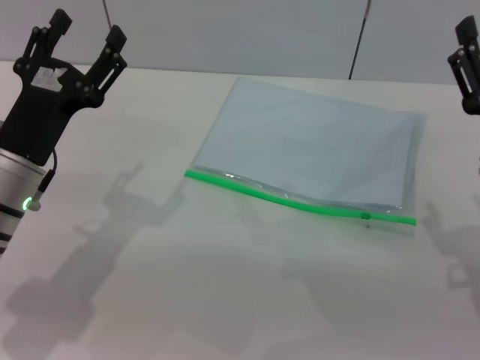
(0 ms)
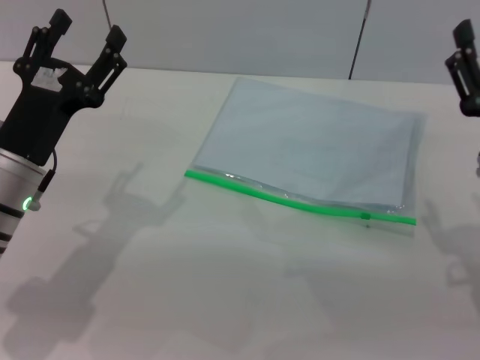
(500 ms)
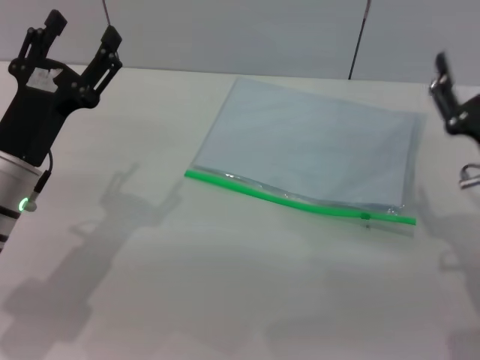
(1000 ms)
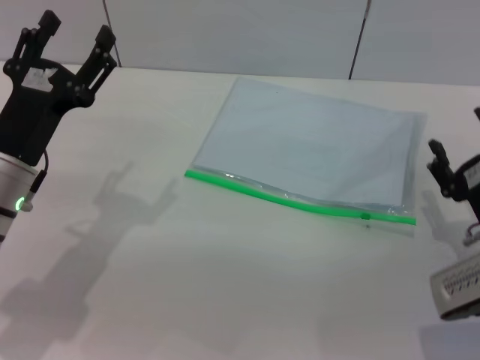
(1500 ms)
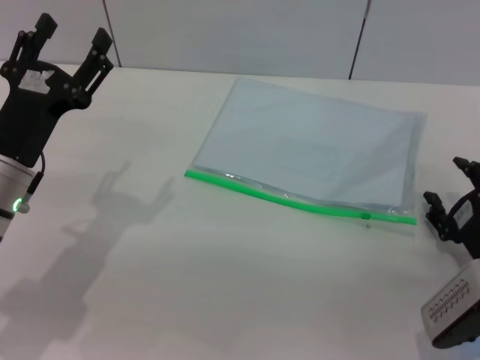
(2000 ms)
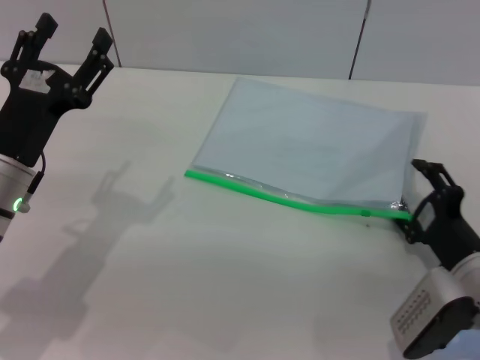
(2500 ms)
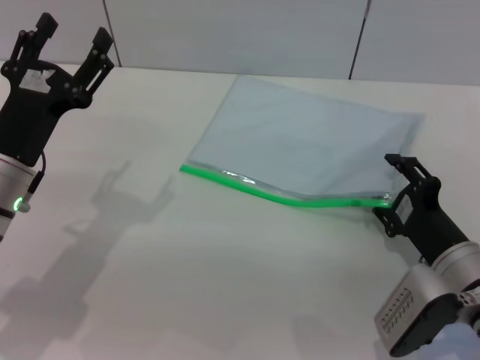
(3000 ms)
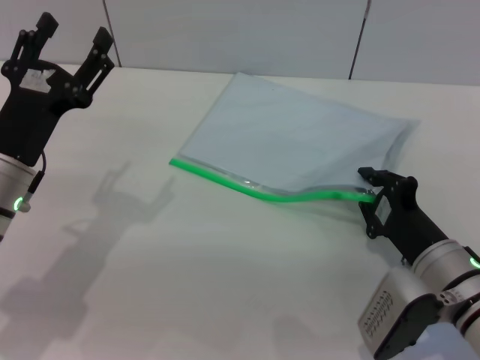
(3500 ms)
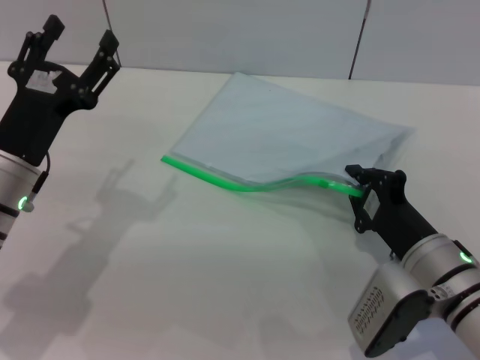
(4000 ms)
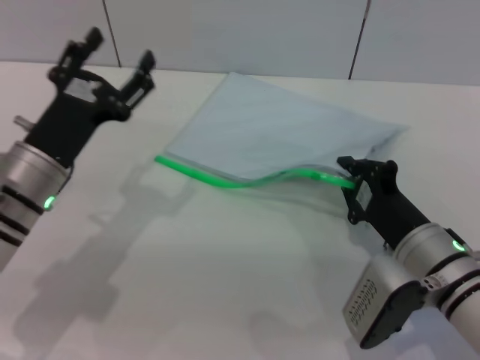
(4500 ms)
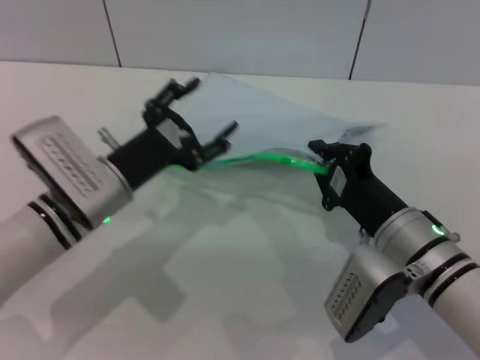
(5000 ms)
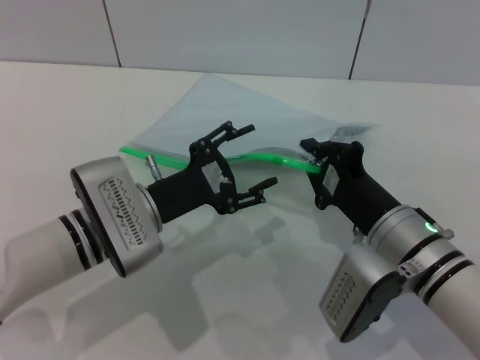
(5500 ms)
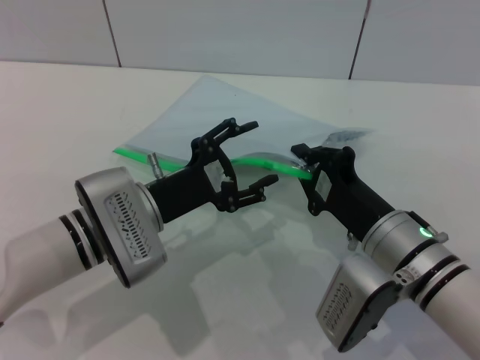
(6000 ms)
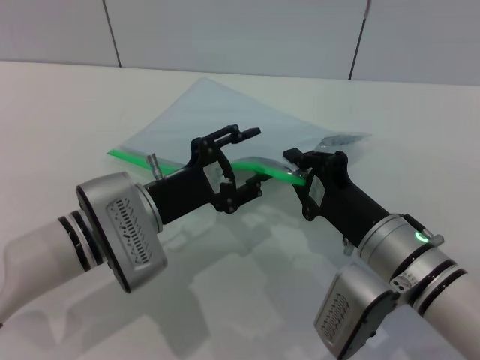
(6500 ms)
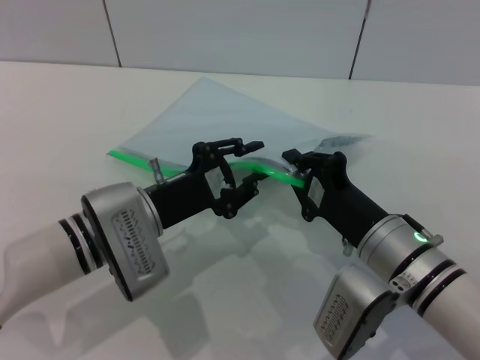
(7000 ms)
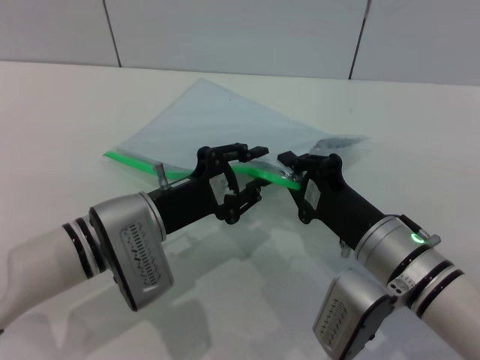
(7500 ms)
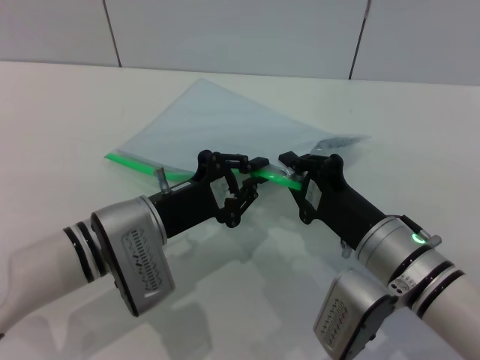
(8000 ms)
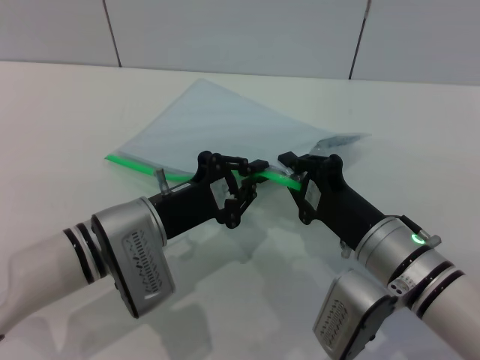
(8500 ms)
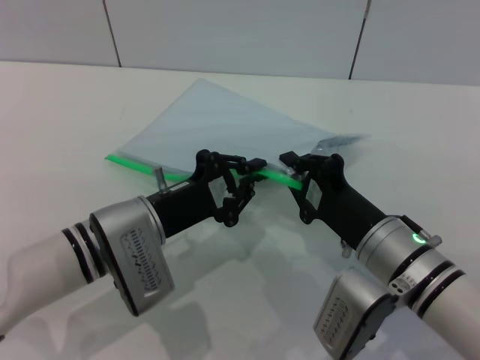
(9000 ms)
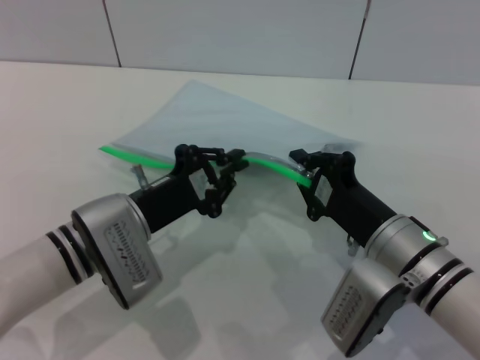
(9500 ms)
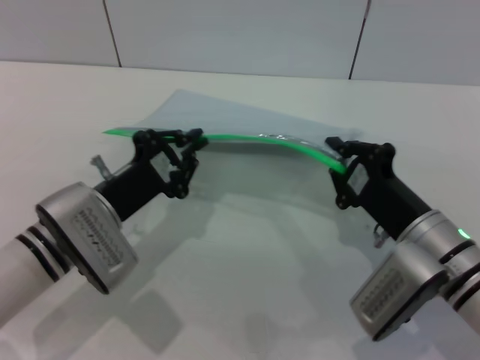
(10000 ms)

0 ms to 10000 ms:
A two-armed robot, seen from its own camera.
Step, 0 ms to 4500 ms: Pick up the transparent plastic bag with the right gripper.
0 ms to 2000 ms: The right gripper moves downward, about 10 cm.
2000 ms to 4000 ms: The right gripper goes approximately 10 cm to the left, and closes up.
4000 ms to 6000 ms: The left gripper shifts roughly 10 cm to the right.
6000 ms to 8000 ms: The left gripper closes.

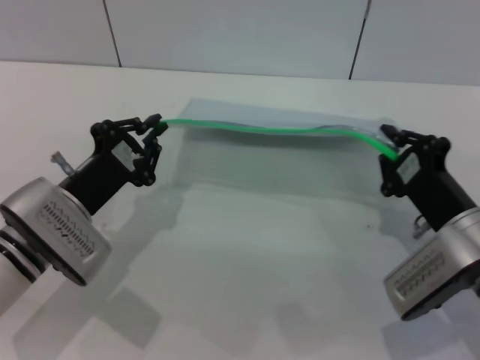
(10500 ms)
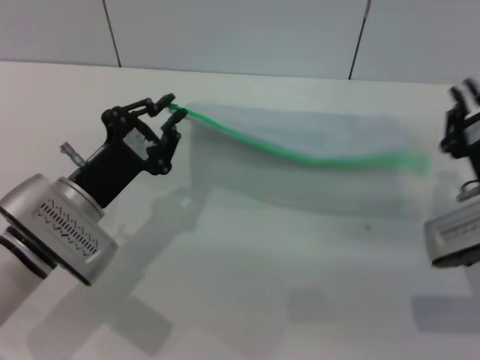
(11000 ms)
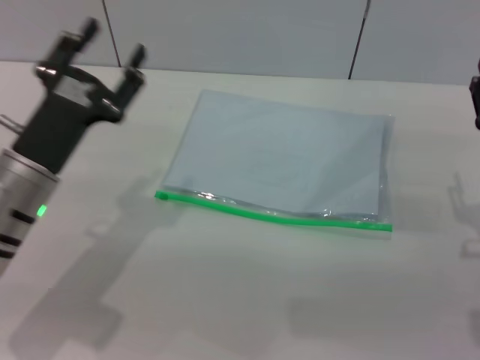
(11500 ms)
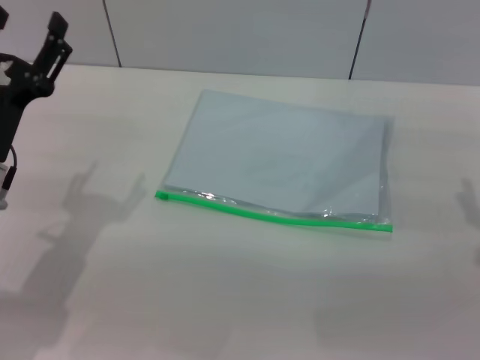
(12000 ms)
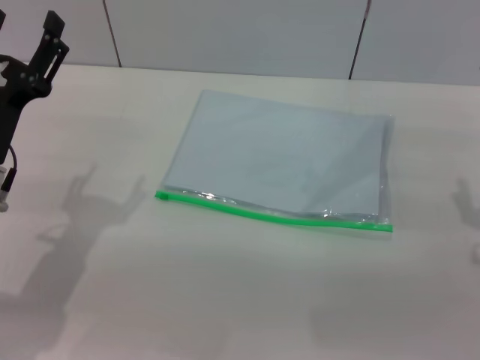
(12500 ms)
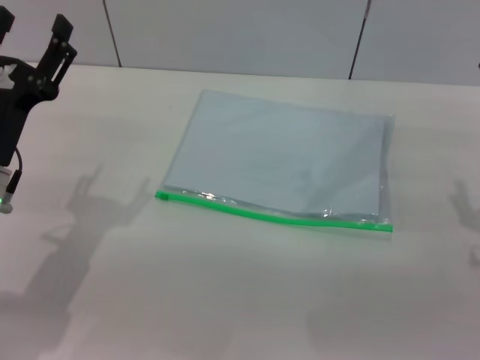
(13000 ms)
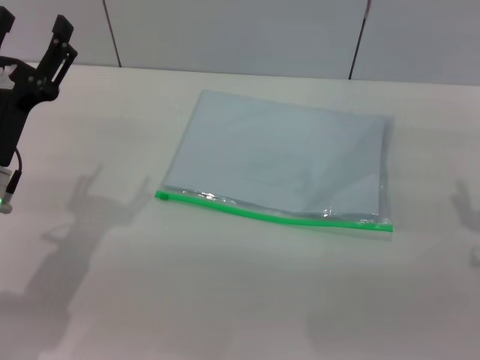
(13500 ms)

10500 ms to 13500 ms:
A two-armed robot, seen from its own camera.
Step, 11000 ms to 11500 ms: Place the transparent plastic bag.
10500 ms to 12000 ms: The left gripper moves approximately 5 cm, and opens up; the right gripper moves about 5 cm, and opens up.
12000 ms to 13500 ms: The two grippers keep their place.

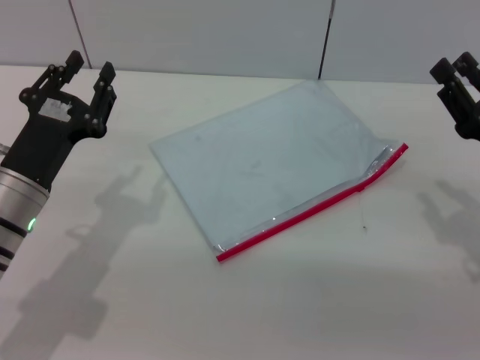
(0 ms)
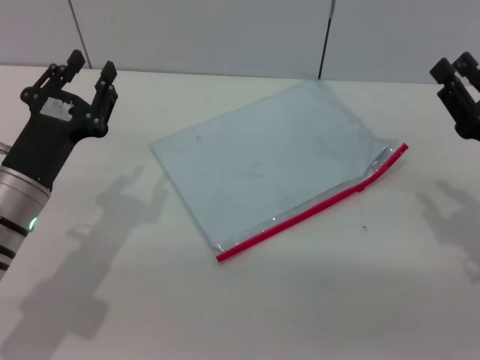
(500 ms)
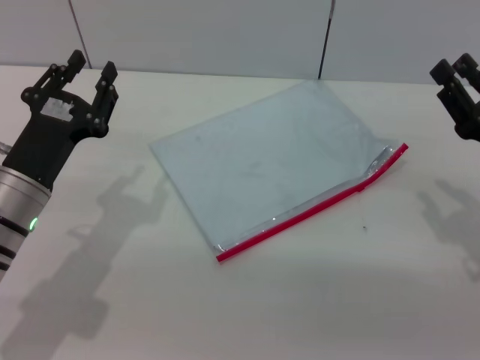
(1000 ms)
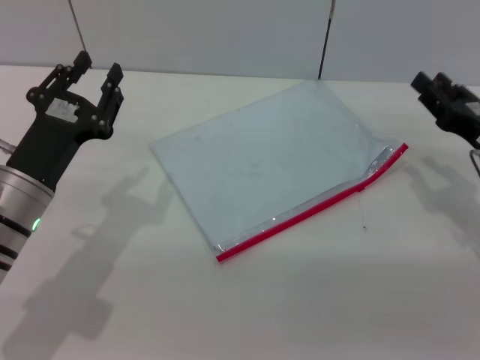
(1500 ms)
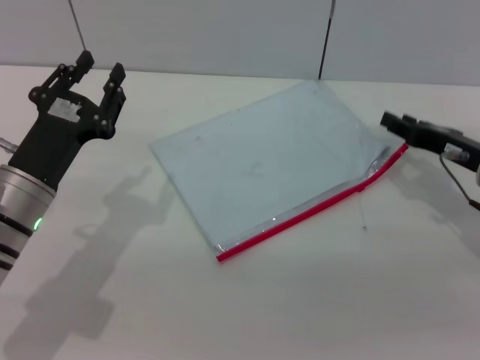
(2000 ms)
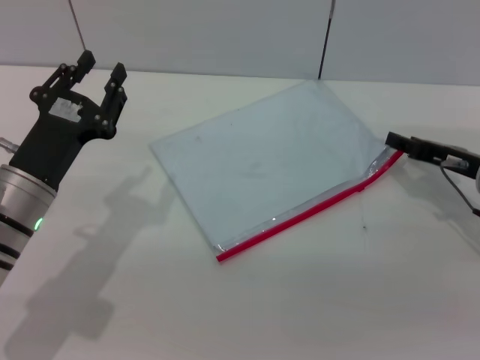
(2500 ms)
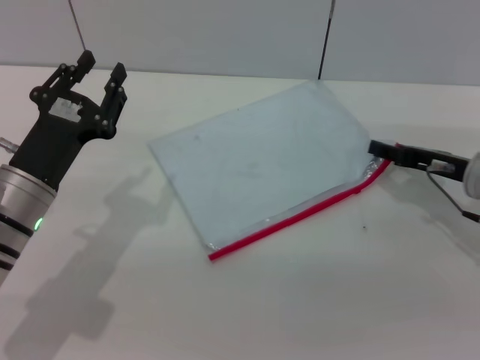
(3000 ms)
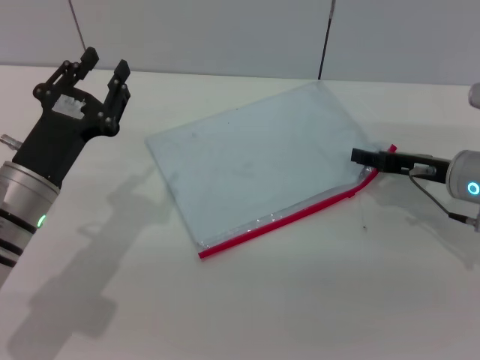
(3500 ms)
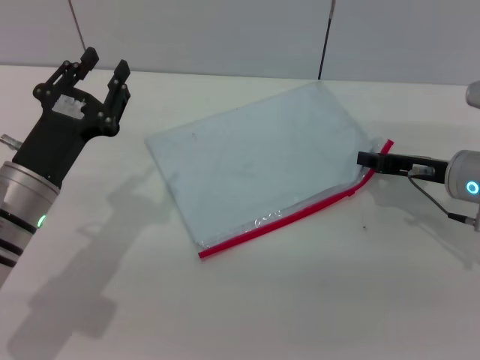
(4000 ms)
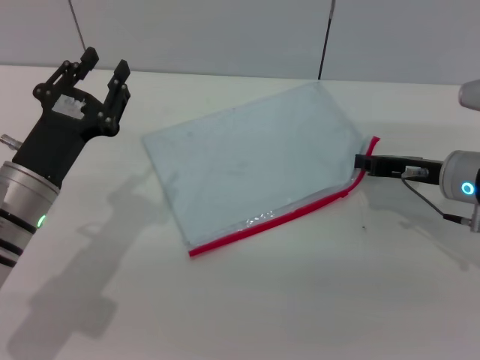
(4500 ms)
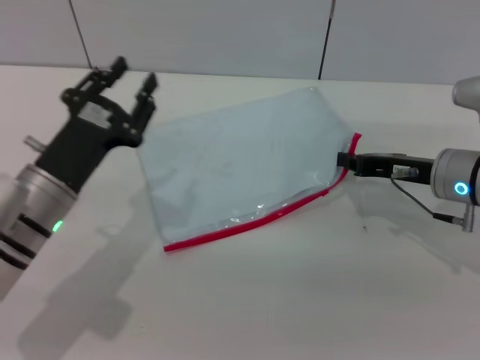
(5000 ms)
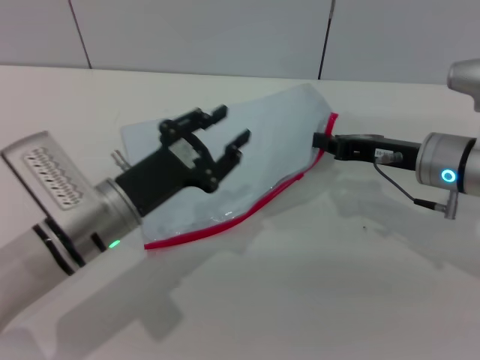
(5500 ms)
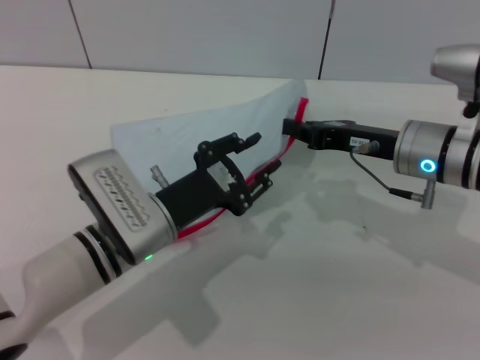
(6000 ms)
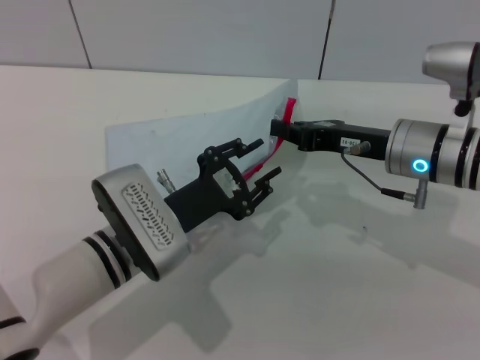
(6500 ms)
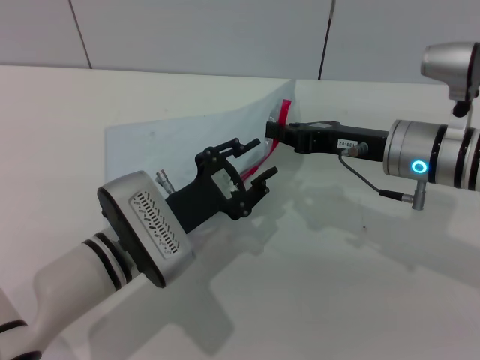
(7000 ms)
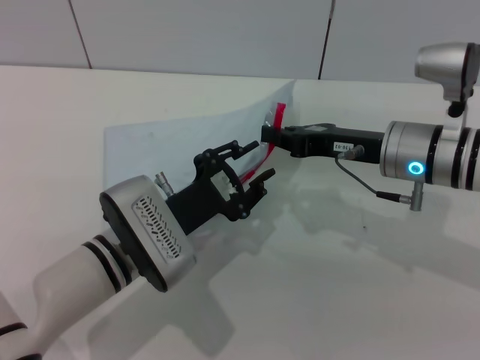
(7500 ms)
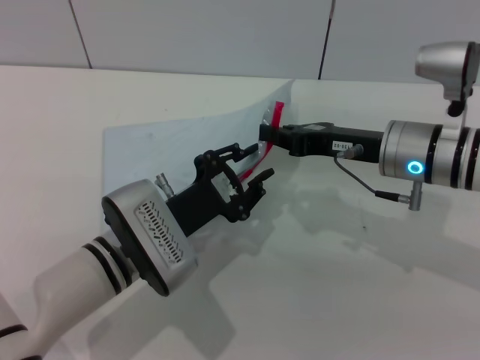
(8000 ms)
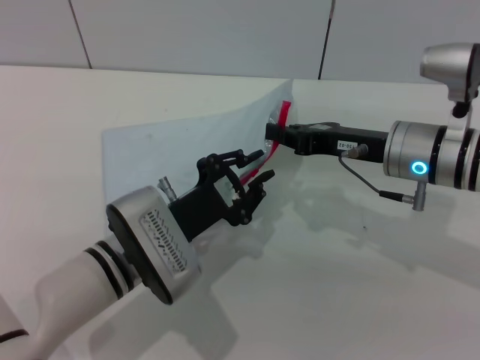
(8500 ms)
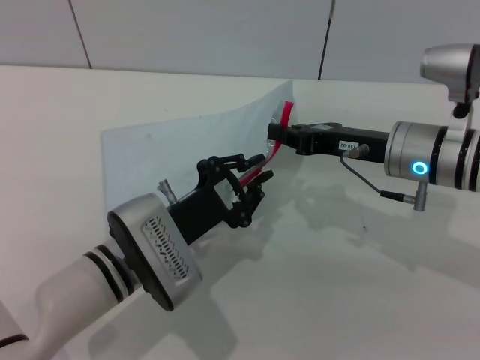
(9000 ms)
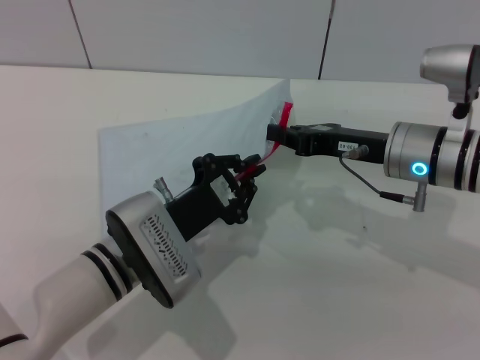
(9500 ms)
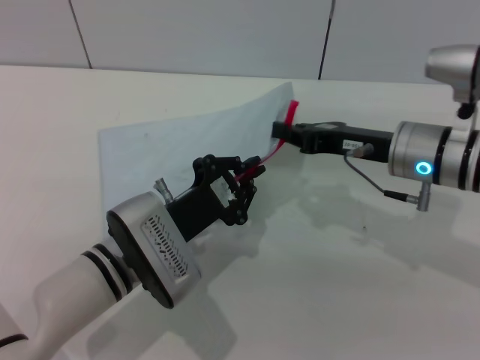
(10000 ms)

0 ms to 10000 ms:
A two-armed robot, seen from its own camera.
Step, 0 ms to 5500 ms: Pick up the transparent plastic bag with the right gripper.
0 ms to 2000 ms: The right gripper goes about 5 cm forward.
2000 ms to 4000 ms: The grippers move only a little.
4000 ms to 6000 ms: The left gripper is displaced to the right by about 10 cm, while the right gripper travels to the left by approximately 5 cm, and closes.
6000 ms to 8000 ms: The grippers stay close to where they were, moving slightly.
8000 ms to 10000 ms: The left gripper closes its fingers.

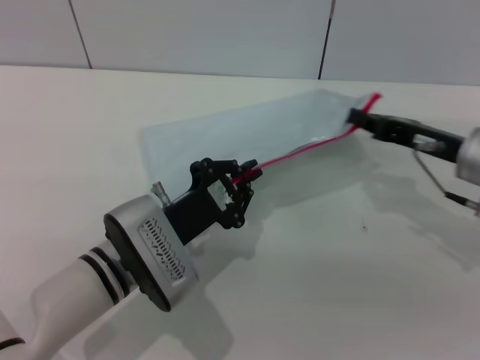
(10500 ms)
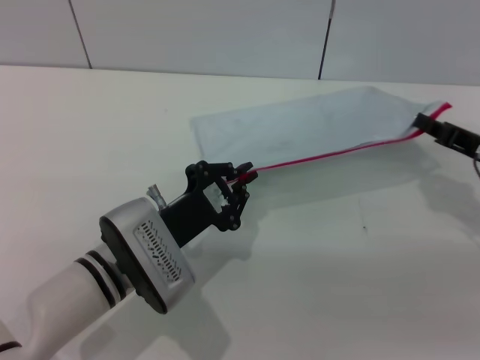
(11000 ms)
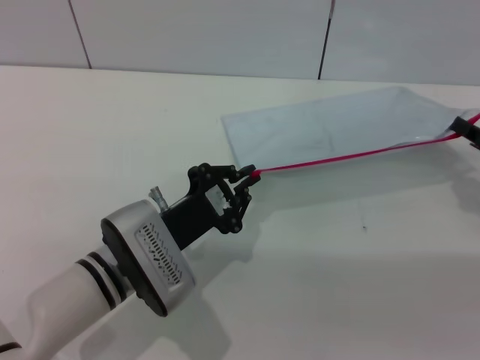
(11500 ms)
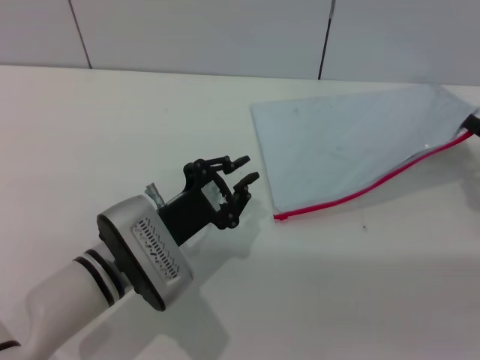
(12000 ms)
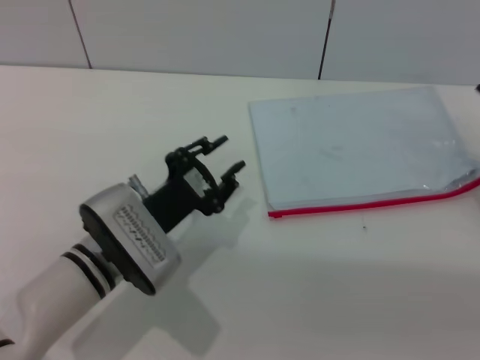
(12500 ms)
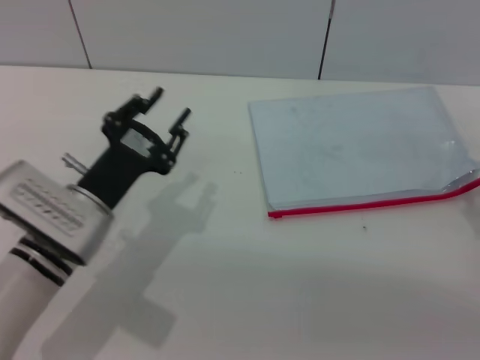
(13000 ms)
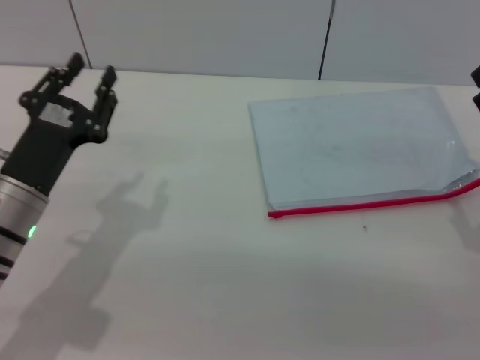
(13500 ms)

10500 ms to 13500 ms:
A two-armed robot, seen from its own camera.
10500 ms to 12000 ms: The right gripper moves to the right, about 10 cm.
12000 ms to 13500 ms: The right gripper goes about 5 cm backward, and opens. The left gripper goes approximately 10 cm to the left, and opens.
